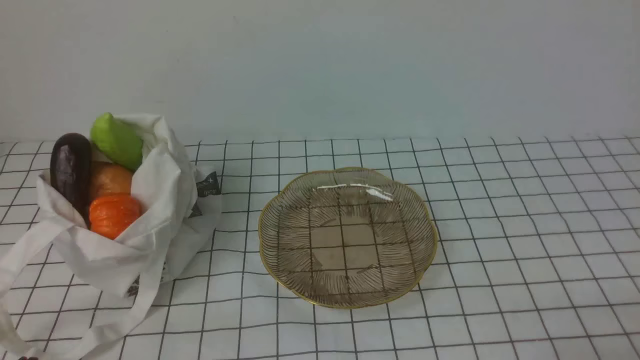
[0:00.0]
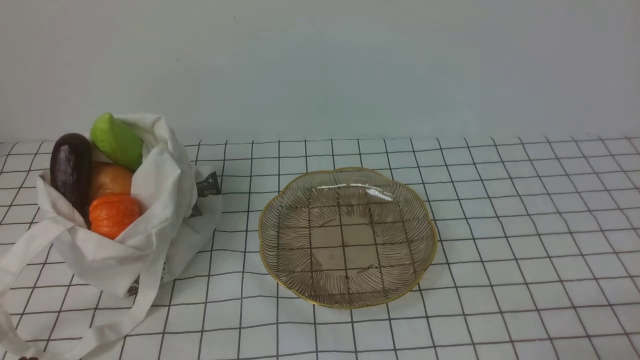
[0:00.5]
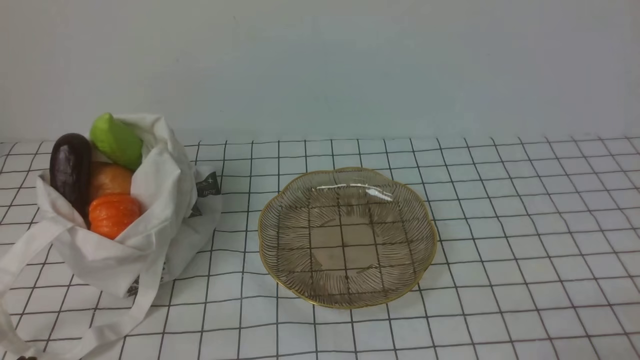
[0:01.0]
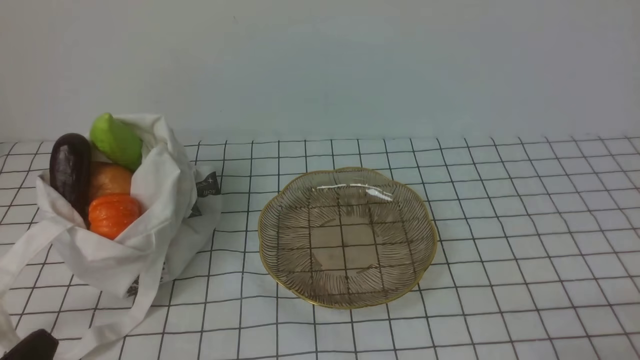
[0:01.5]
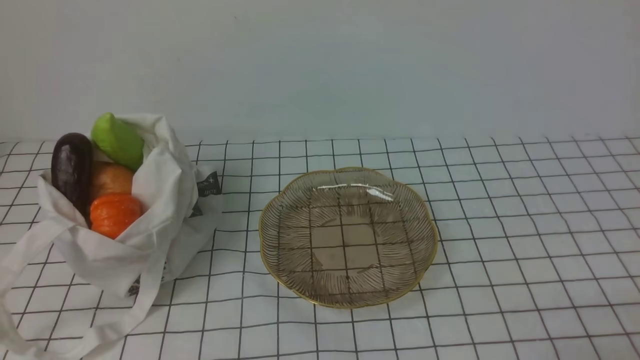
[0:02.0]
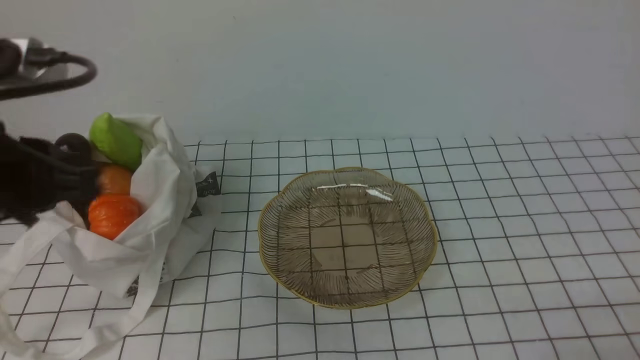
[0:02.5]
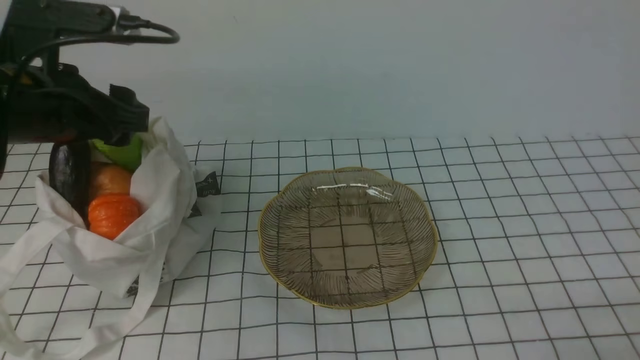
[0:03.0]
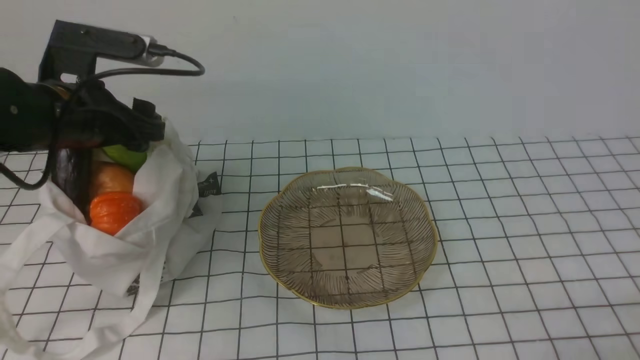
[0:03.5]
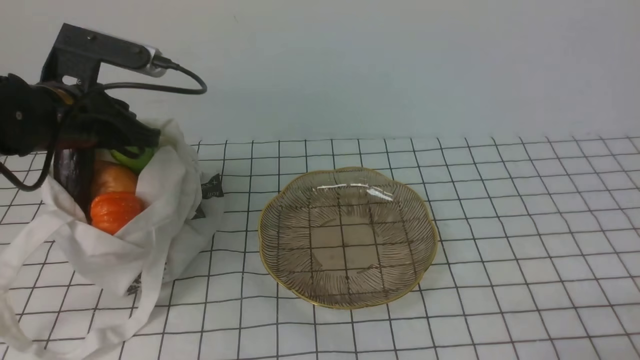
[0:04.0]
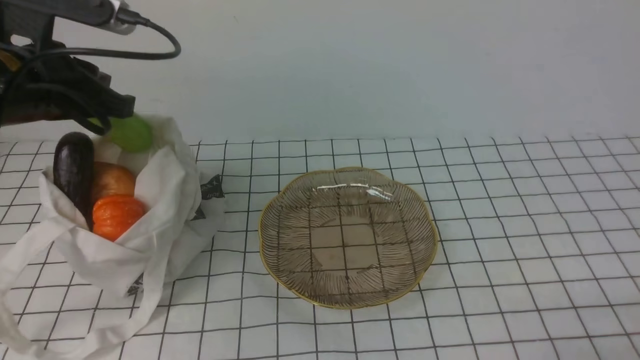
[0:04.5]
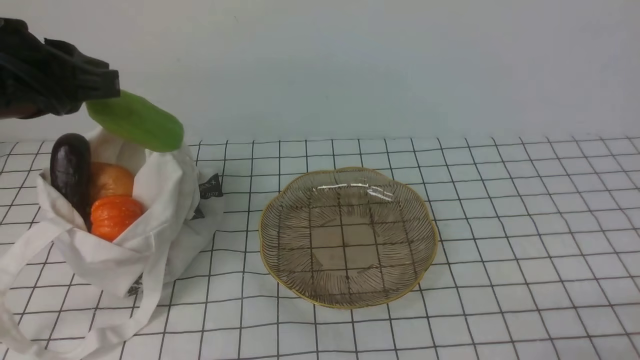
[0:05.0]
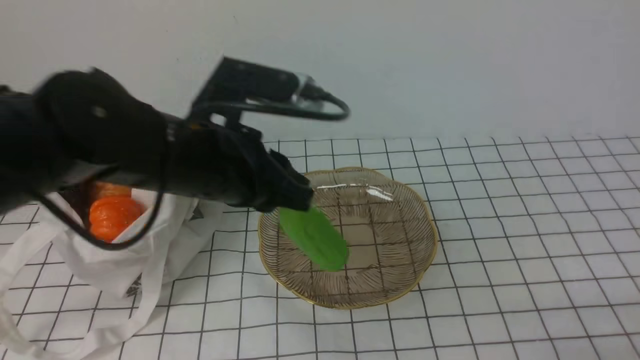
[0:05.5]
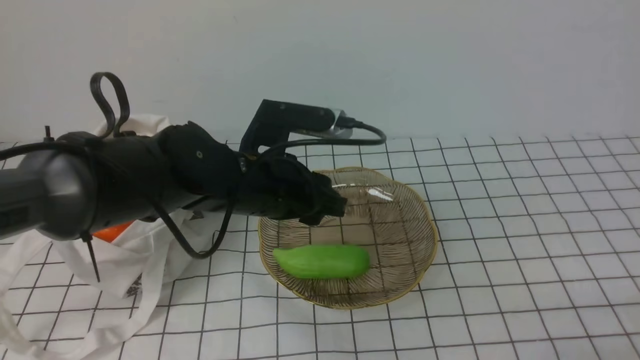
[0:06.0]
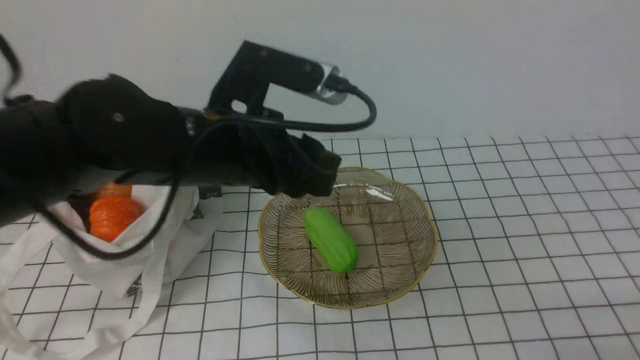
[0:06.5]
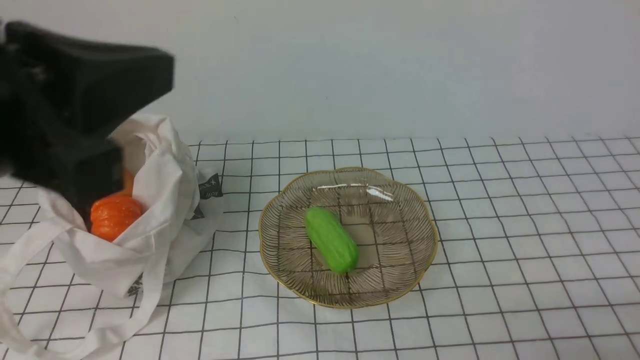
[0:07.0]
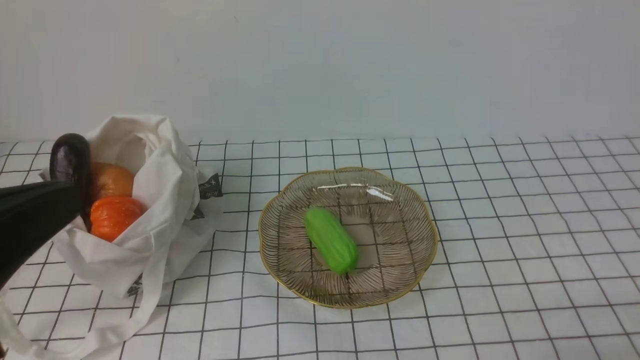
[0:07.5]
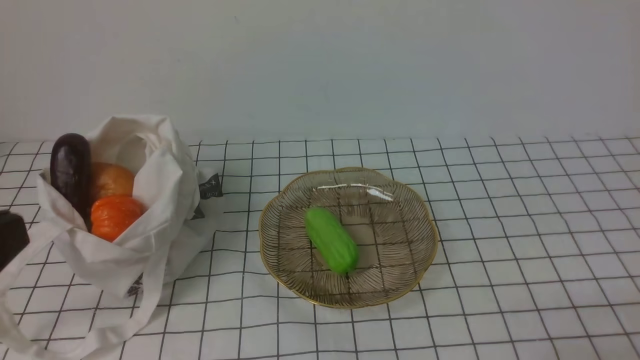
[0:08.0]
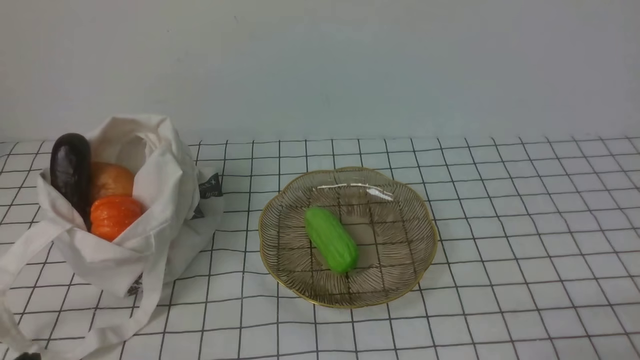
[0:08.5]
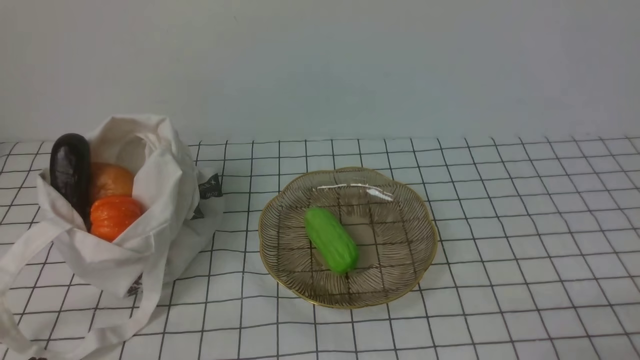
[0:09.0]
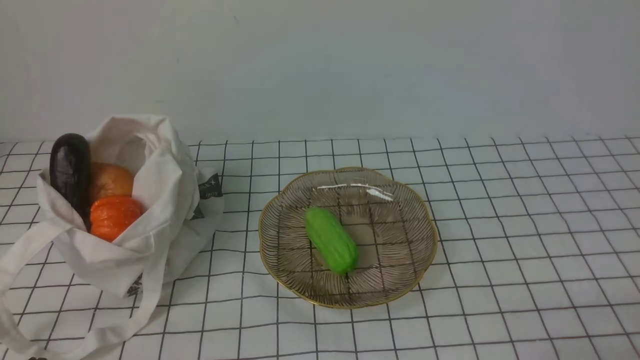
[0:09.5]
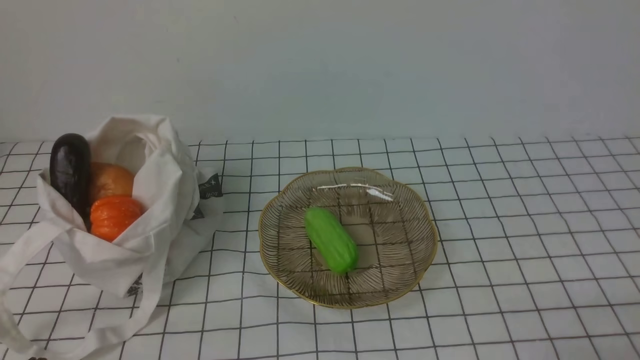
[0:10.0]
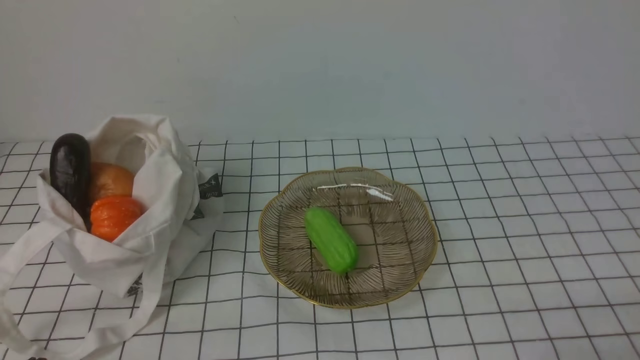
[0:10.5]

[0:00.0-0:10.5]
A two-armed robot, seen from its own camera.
Task of the whole recording: take vegetables from bag on white checkered tablecloth place on plate.
Step, 0:00.0 to 0:03.5: Grasp the bitter melon with left gripper.
Step, 0:04.0 to 0:06.0: Place the bitter melon on the plate with left gripper.
0:02.0 to 0:04.0: The left gripper moves forward, roughly 30 cm, and opens, then closes once more.
0:04.0 to 0:06.5: The left gripper shifts about 15 cm to the right, and opens.
0:06.5 to 0:08.5: The left gripper travels backward and to the left by about 30 cm, and closes its fingers.
